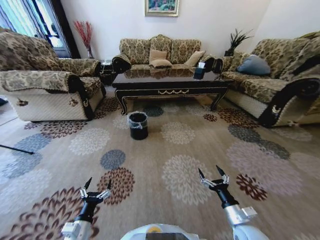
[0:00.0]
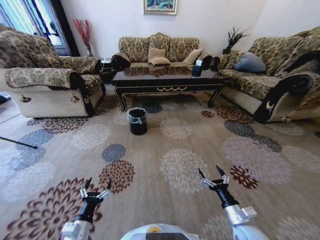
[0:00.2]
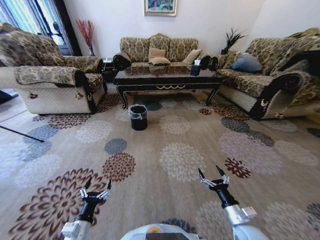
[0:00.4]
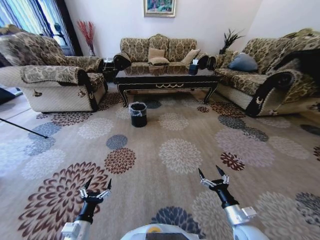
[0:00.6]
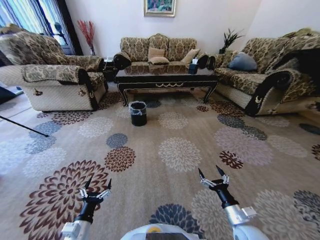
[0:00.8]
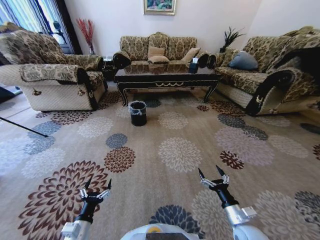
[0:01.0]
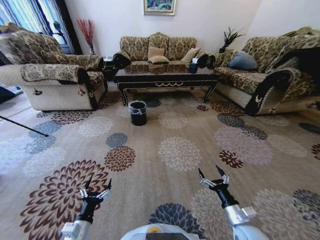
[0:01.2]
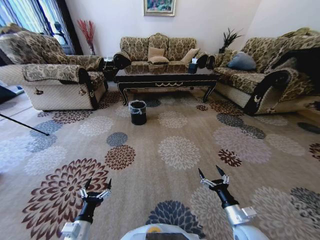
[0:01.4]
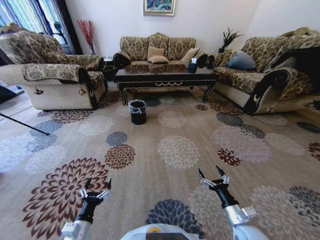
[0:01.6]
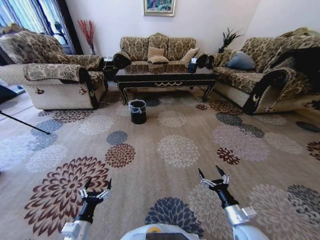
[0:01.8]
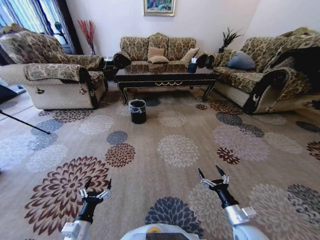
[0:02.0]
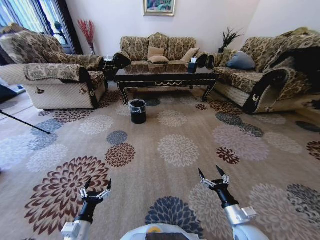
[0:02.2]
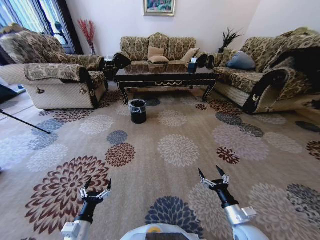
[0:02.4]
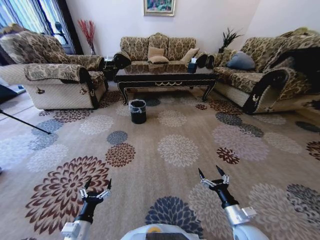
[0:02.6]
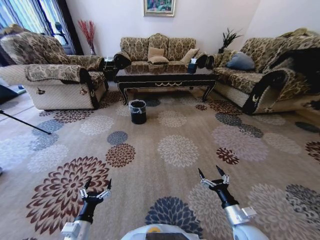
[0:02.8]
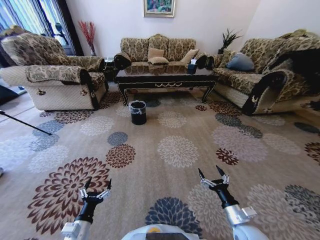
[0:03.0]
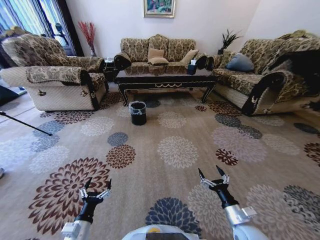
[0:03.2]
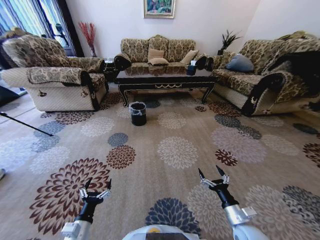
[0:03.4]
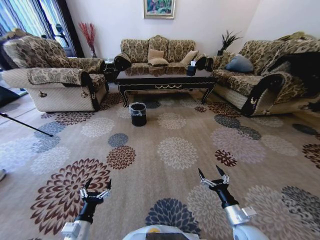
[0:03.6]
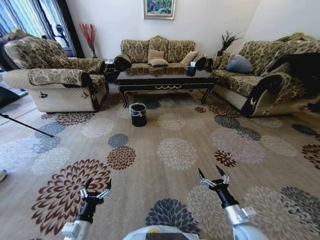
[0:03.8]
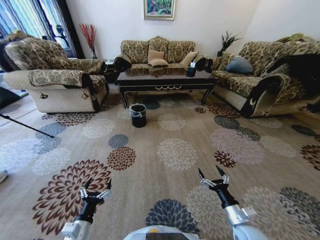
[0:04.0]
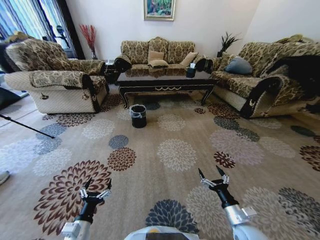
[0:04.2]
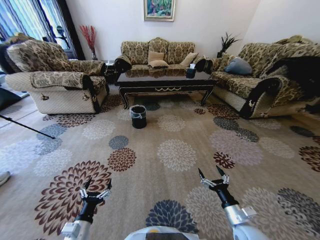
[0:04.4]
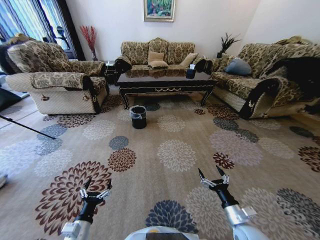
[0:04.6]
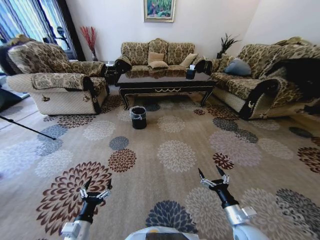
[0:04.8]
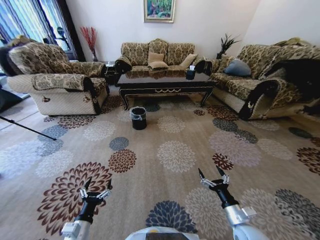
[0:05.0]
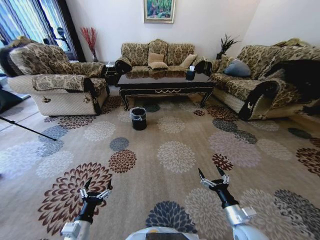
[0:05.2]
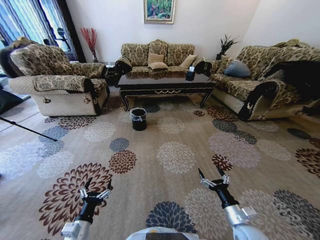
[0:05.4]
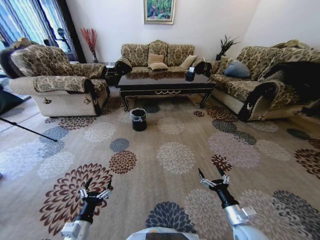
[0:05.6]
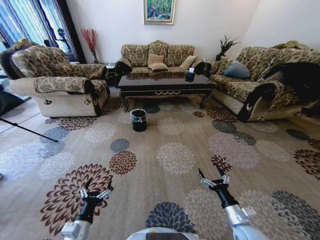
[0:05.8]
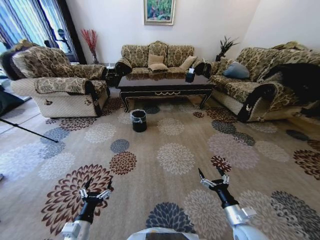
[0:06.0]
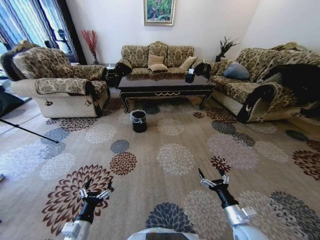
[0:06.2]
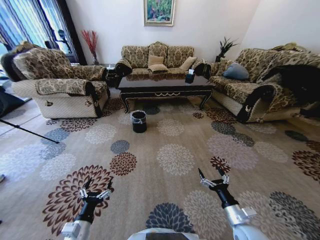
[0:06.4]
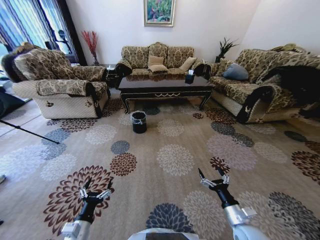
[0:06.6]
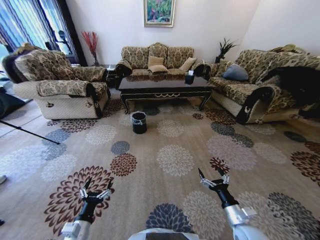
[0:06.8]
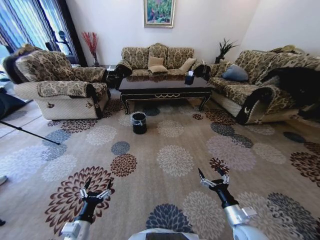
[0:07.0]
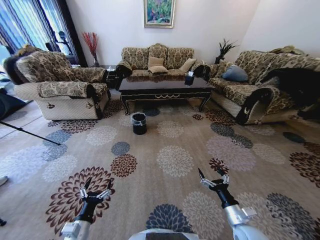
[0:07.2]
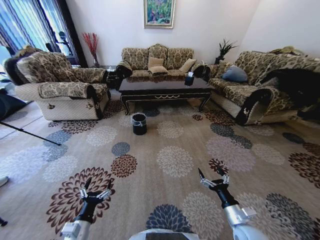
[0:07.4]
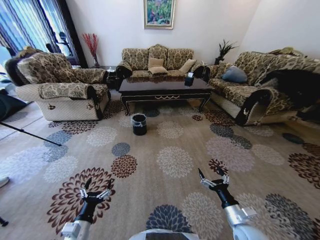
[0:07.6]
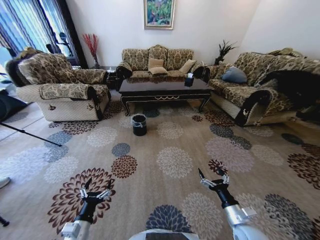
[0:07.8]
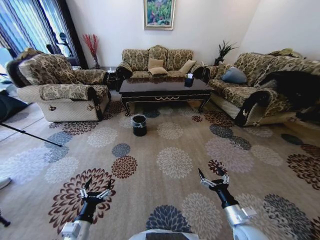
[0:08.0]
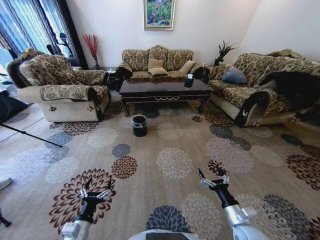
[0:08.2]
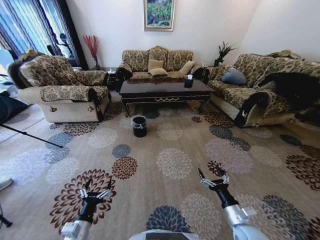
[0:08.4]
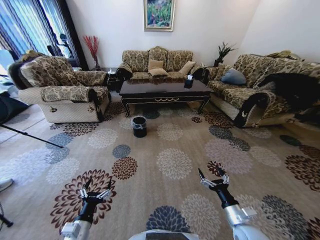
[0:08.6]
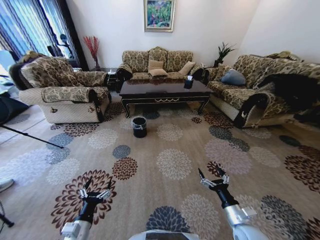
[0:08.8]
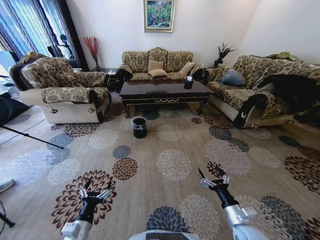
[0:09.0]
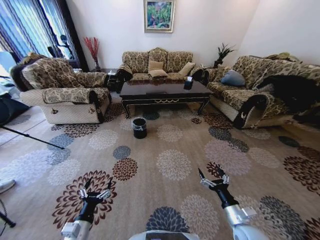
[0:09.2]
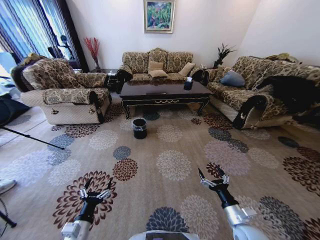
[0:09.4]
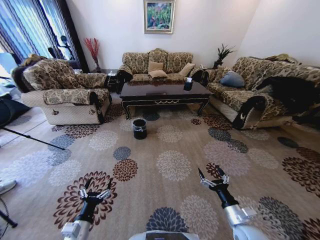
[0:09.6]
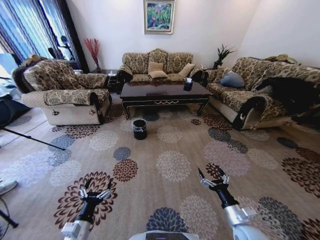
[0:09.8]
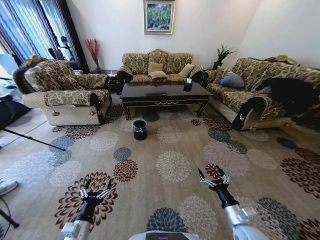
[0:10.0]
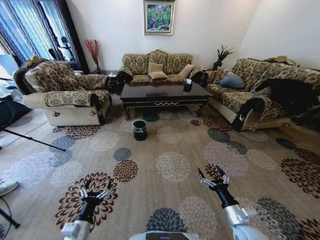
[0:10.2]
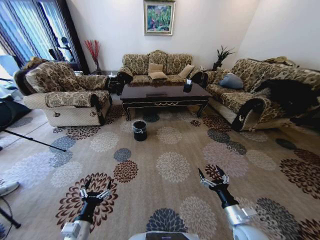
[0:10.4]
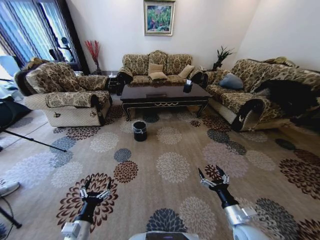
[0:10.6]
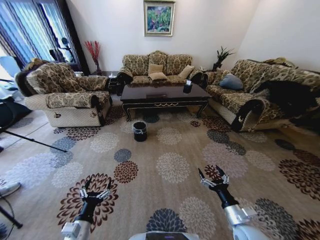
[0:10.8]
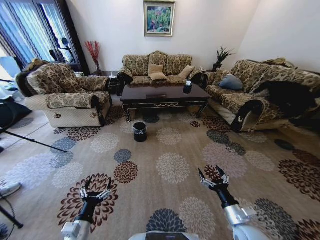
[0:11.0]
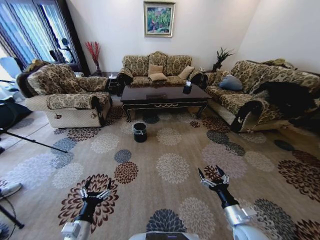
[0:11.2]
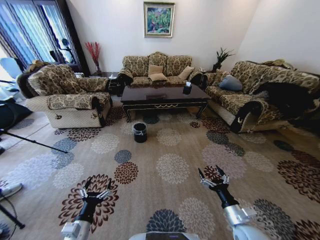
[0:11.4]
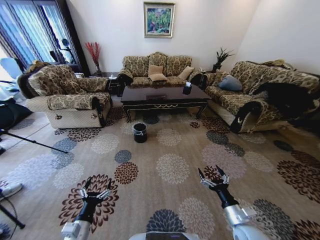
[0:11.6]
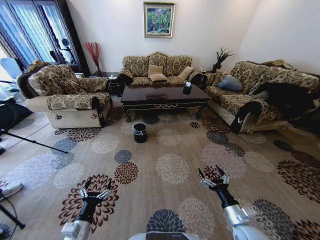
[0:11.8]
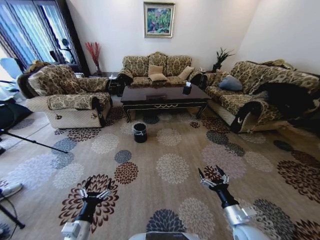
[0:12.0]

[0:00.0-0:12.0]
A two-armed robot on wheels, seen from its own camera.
Task of the whole recording: Move to the front of the table and pick up the trash from the floor, then place it into the trash bin.
0:01.6 to 0:03.0: Neither gripper changes place.
0:10.4 to 0:12.0: Both grippers stay put.

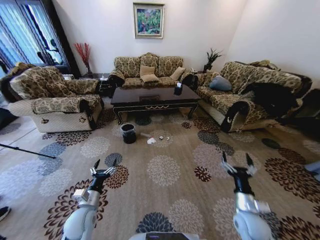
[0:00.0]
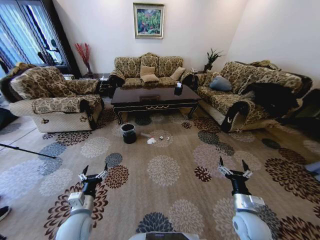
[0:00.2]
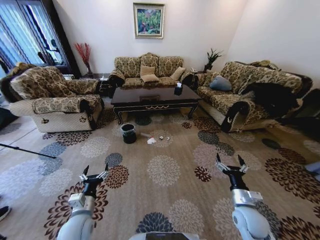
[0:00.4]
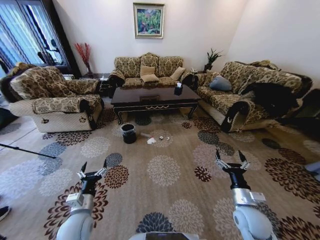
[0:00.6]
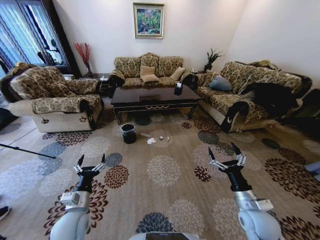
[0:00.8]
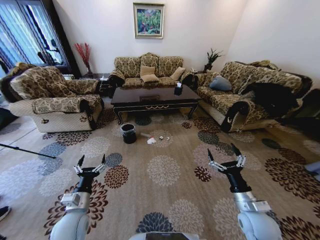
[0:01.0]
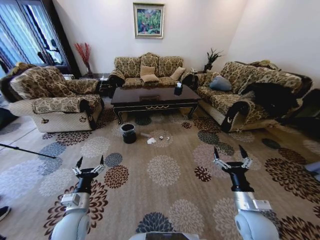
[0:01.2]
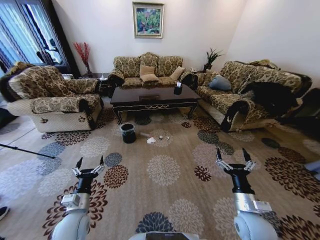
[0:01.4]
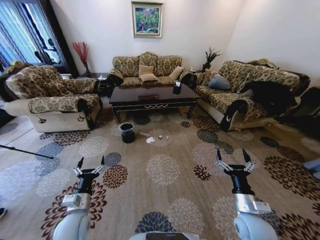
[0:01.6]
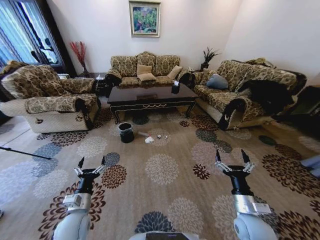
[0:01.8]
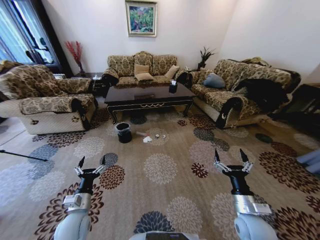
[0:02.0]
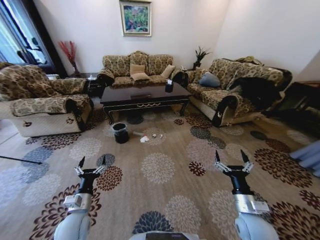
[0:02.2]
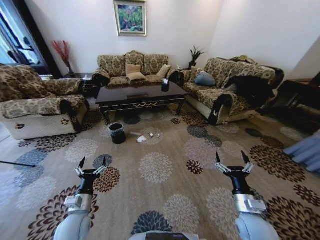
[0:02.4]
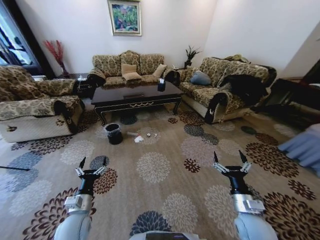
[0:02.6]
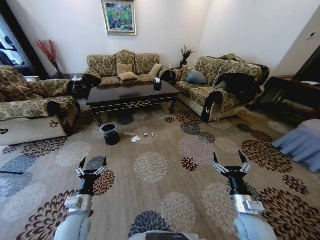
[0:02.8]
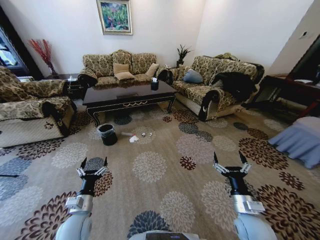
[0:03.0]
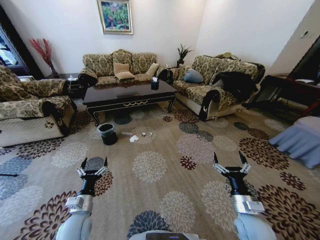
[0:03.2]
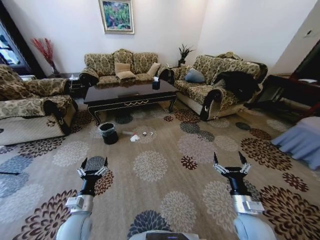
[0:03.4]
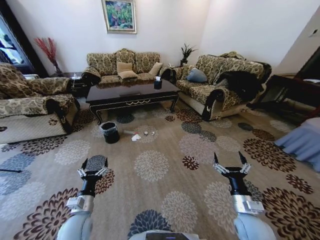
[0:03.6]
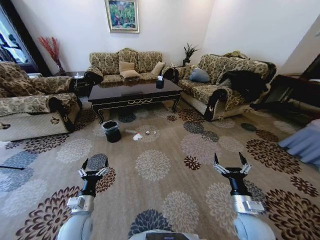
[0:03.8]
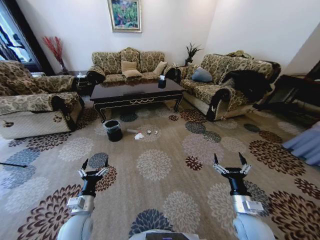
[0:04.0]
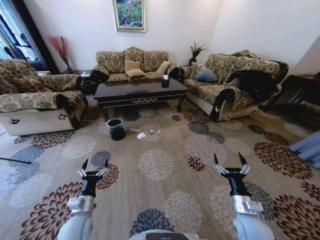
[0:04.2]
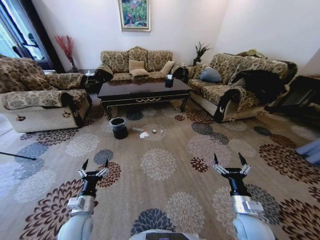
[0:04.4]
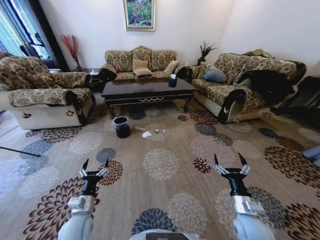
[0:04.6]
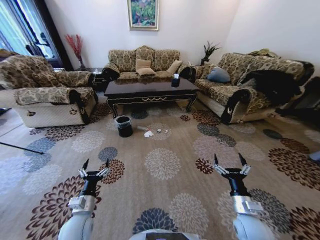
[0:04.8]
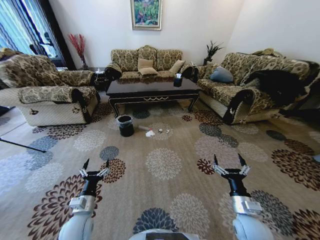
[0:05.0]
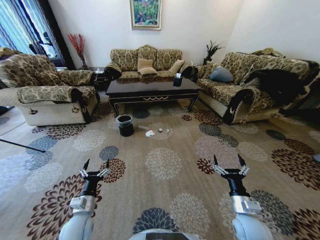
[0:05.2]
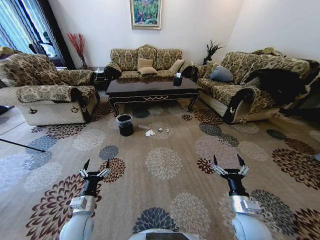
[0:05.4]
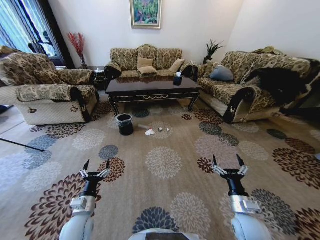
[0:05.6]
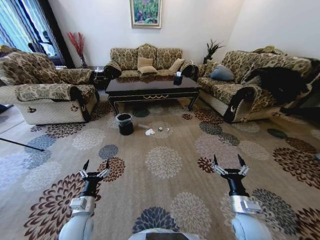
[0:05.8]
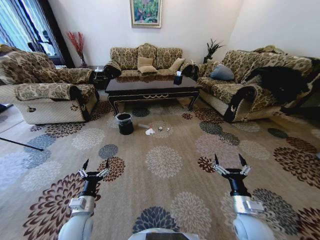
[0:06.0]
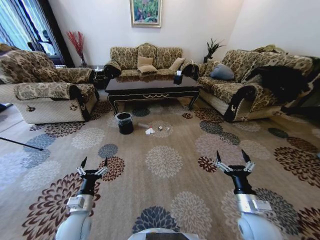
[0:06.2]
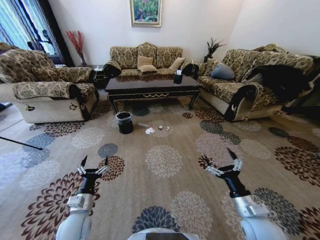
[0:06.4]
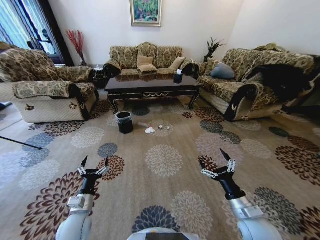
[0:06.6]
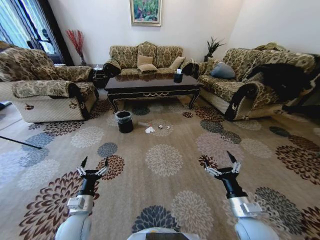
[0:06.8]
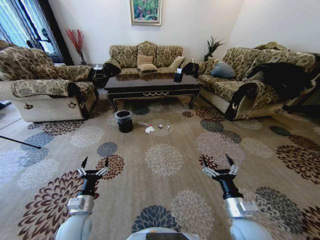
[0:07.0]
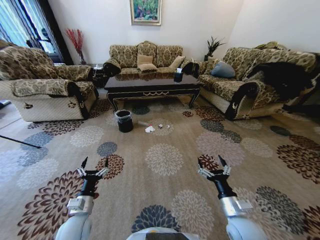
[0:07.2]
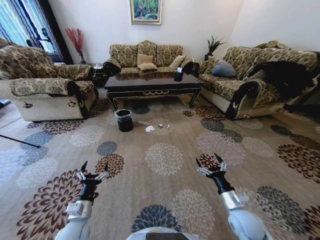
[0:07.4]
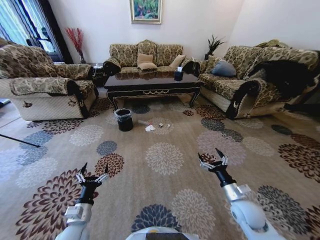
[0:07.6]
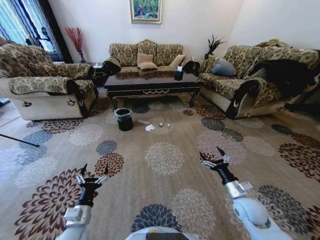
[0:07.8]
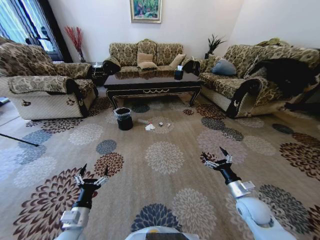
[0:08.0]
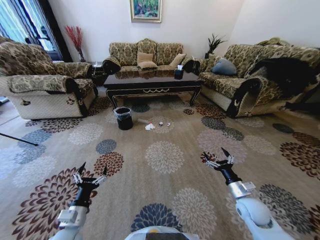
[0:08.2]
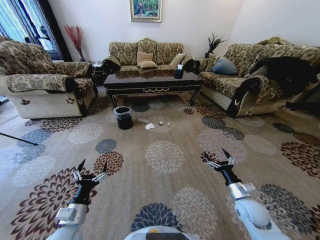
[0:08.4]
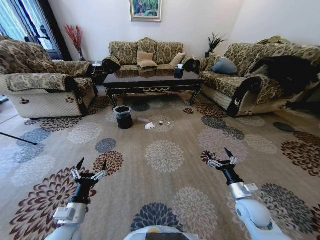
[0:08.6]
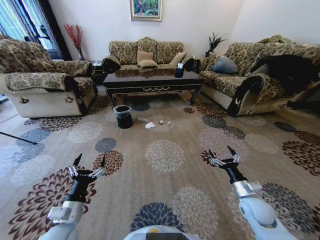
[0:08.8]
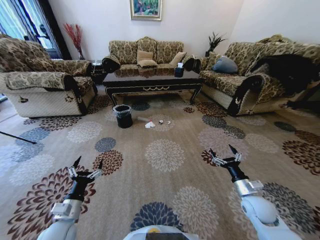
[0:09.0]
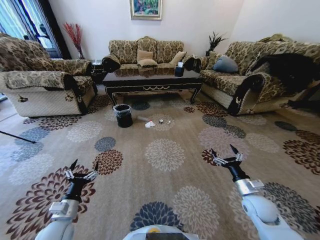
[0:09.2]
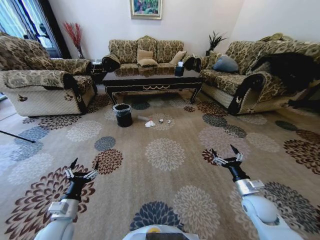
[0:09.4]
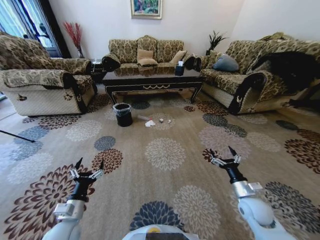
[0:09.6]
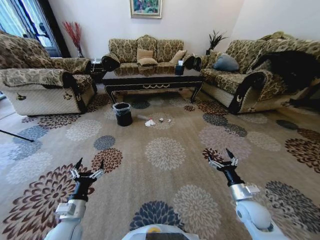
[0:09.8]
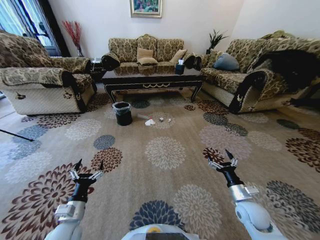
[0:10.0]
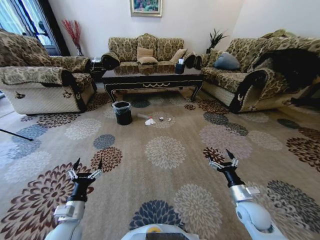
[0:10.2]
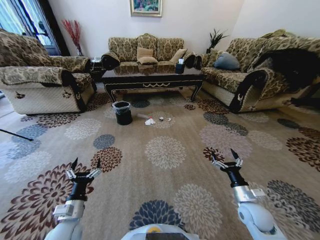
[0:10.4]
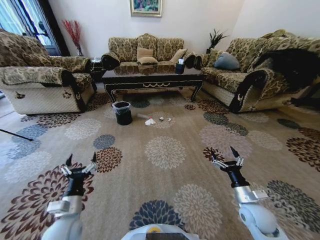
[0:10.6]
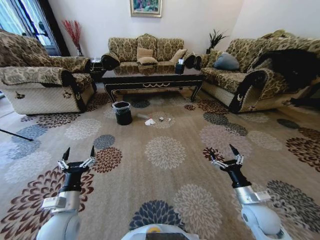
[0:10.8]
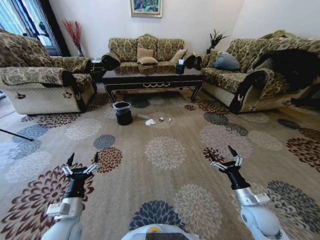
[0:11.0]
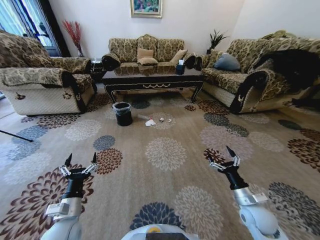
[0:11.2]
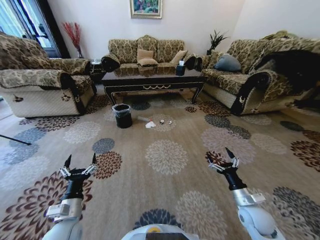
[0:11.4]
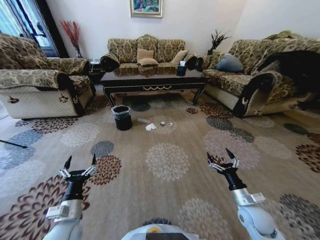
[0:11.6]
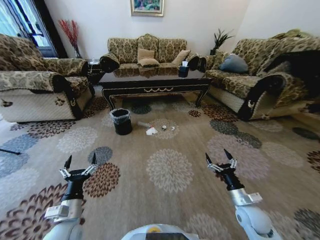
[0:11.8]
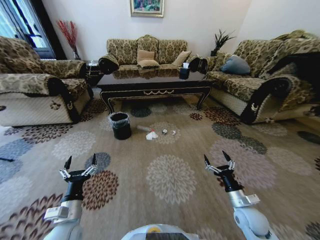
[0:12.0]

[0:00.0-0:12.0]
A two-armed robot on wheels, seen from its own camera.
Task of the whole recording: Move to the front of the table and pick up the trash from the floor, then place it into the trash bin.
0:06.0 to 0:07.6: The right gripper heads forward, covering some 5 cm.
0:07.6 to 0:09.0: The right gripper is displaced to the right by roughly 5 cm.
